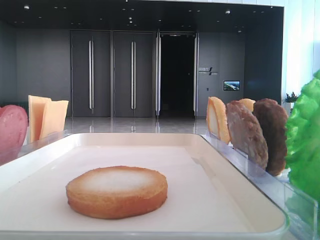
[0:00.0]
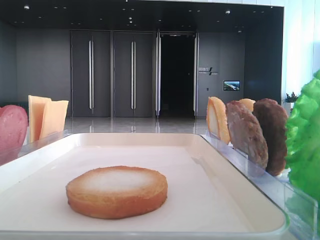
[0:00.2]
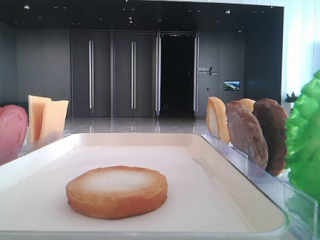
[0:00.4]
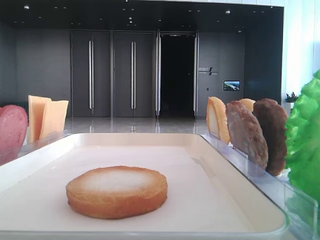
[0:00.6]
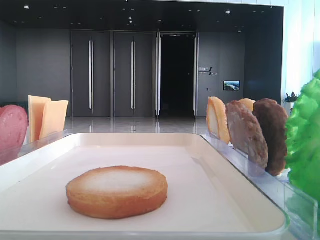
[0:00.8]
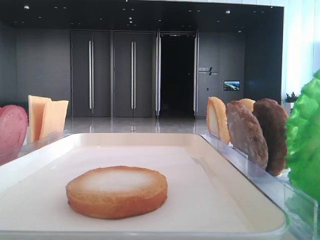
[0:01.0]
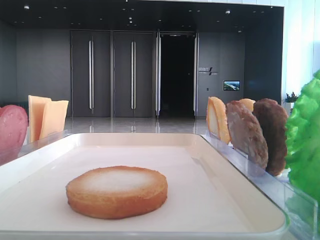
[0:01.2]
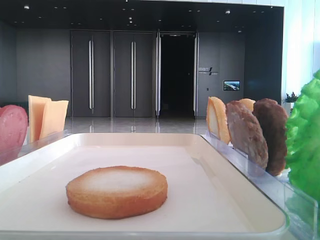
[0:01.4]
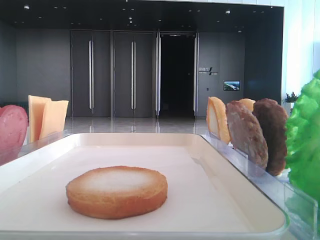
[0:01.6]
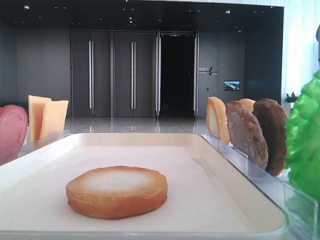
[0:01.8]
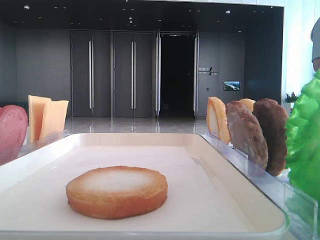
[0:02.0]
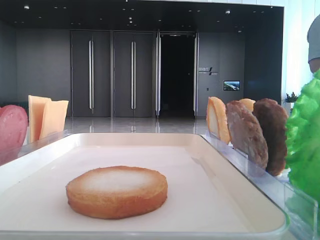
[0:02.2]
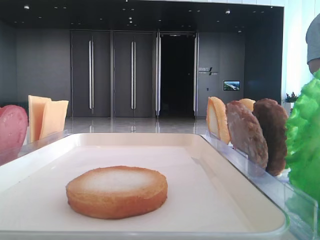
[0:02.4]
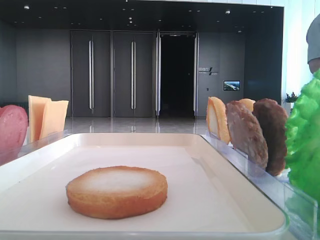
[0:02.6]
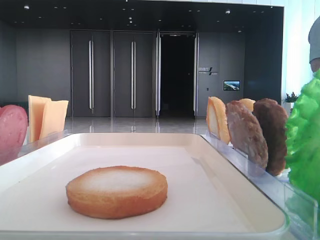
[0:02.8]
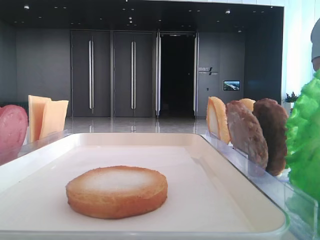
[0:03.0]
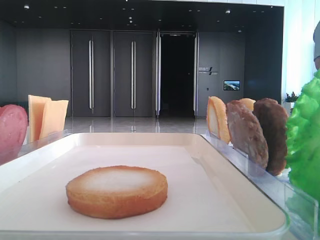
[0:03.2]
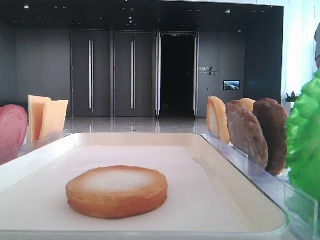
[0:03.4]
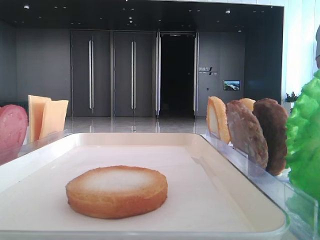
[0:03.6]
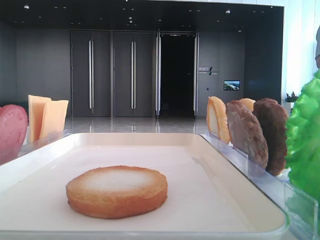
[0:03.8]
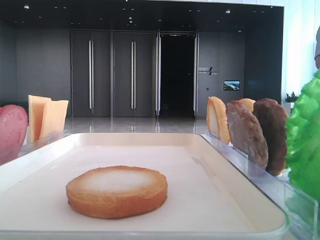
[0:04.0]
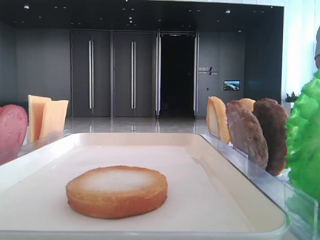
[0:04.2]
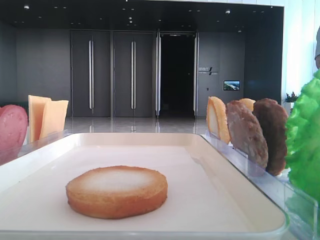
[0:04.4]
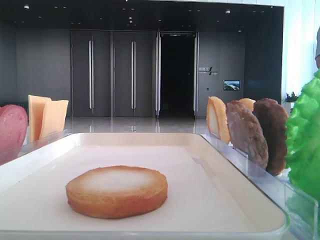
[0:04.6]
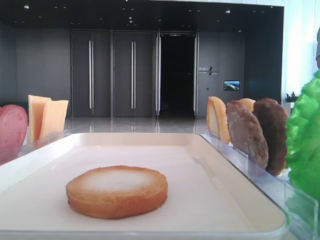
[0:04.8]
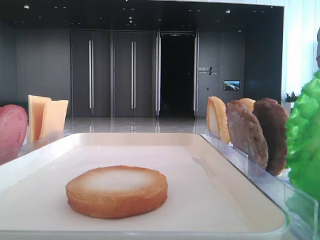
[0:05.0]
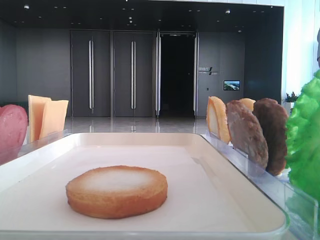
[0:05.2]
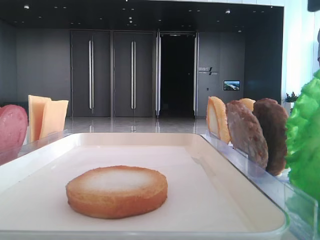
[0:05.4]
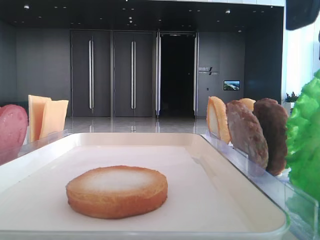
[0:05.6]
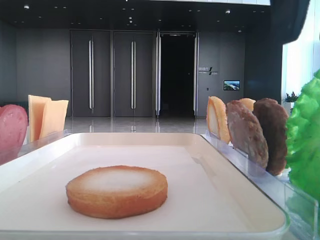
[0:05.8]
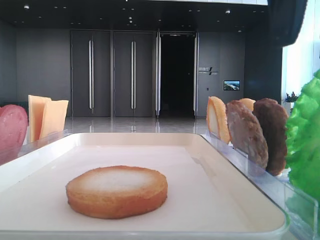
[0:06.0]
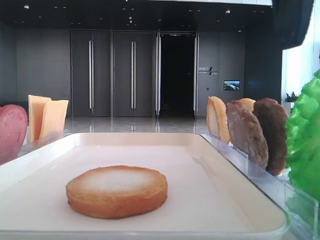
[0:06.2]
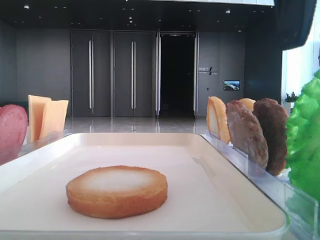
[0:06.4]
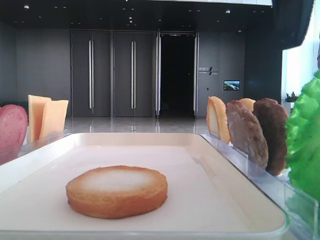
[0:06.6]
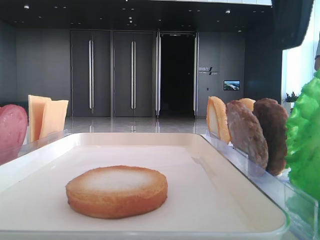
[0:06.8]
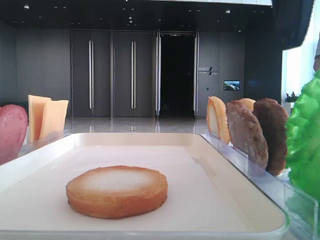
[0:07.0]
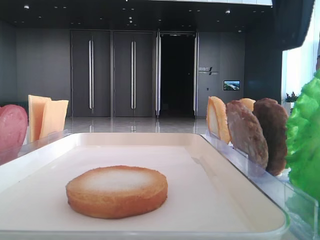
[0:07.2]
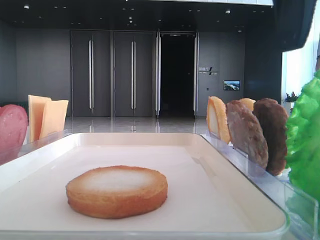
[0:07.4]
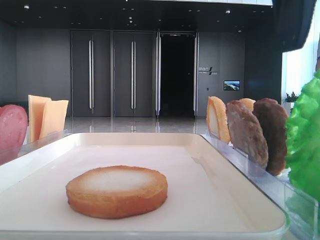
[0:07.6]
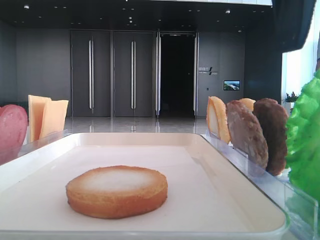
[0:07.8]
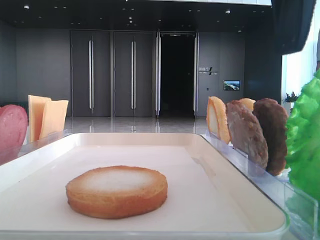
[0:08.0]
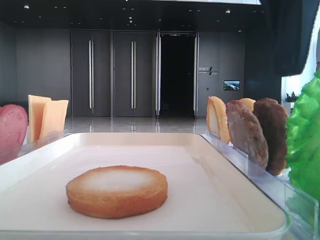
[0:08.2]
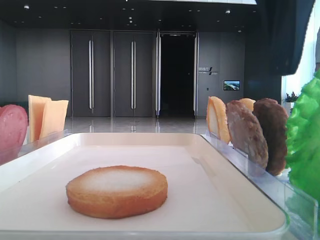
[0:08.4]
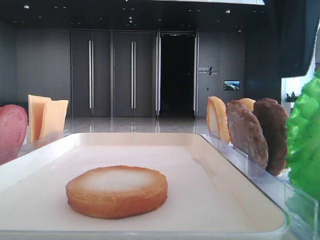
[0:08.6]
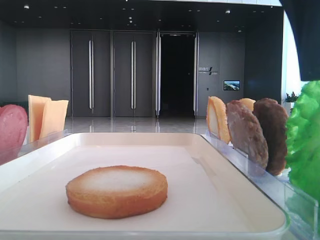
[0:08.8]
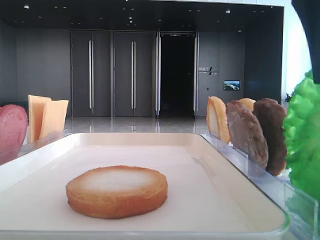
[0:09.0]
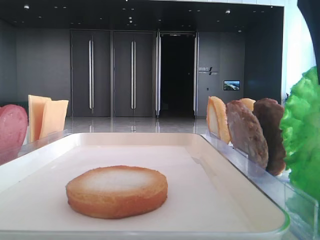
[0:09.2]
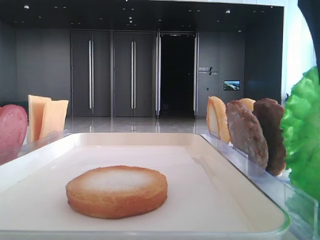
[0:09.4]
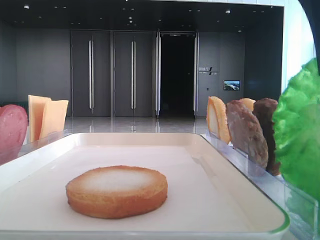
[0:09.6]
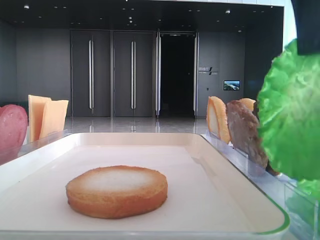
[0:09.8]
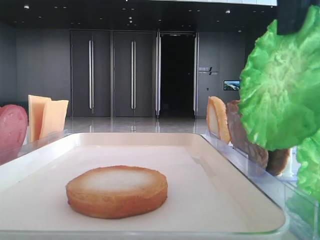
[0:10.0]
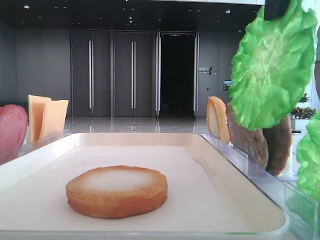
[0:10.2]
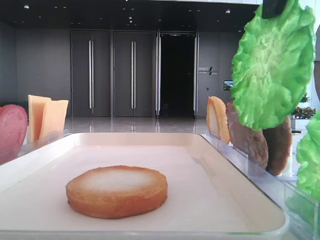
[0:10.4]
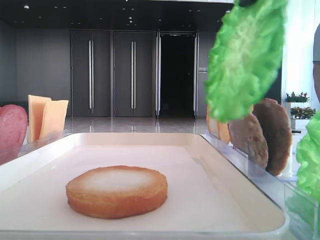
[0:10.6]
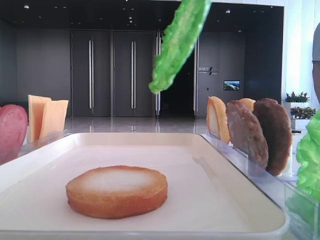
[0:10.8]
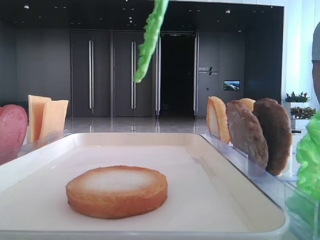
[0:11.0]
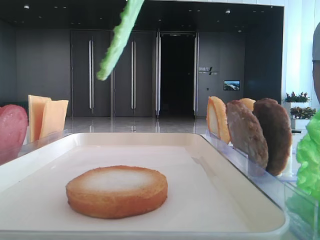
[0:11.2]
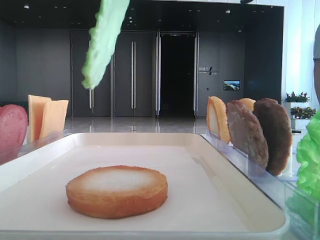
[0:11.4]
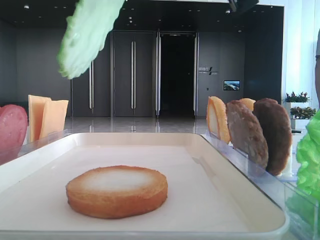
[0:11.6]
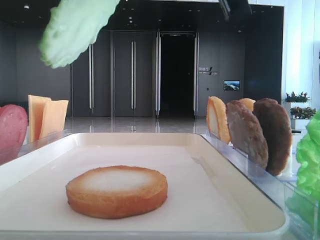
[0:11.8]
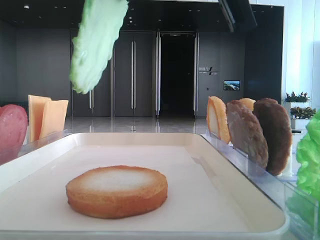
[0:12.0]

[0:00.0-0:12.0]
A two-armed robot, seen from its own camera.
Step, 0:00.0 to 0:09.4: Grab the lettuce leaf with the right hand.
0:04.4 to 0:06.0: The right gripper shifts some 5 cm to the left.
0:06.0 to 0:07.6: Neither gripper changes place.
0:07.6 to 0:09.0: The right gripper closes up.
0:09.0 to 0:10.4: The right gripper is displaced upward by roughly 5 cm.
0:10.4 to 0:12.0: The right gripper shifts by approximately 5 cm.

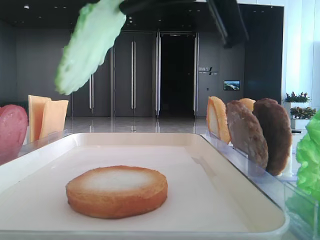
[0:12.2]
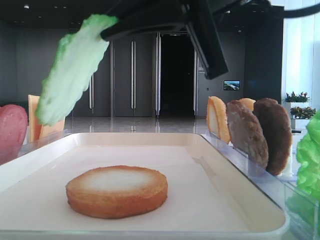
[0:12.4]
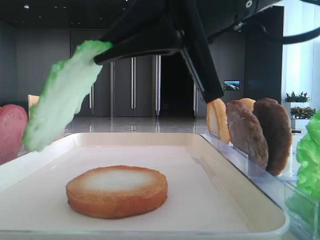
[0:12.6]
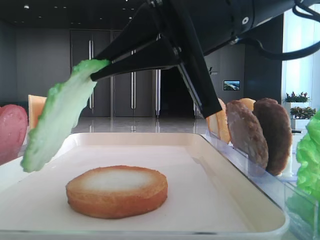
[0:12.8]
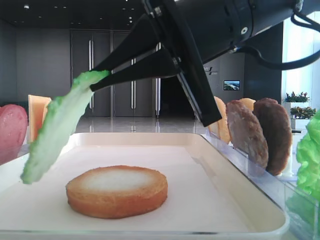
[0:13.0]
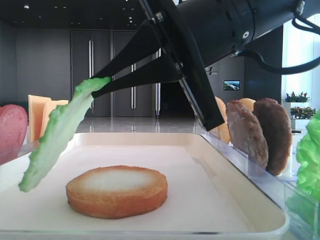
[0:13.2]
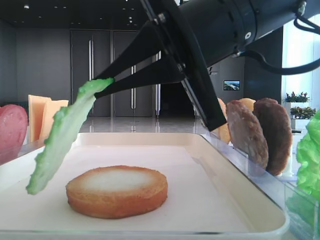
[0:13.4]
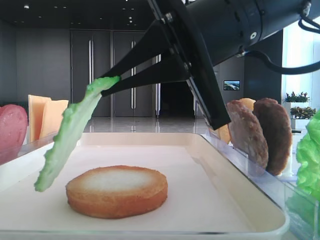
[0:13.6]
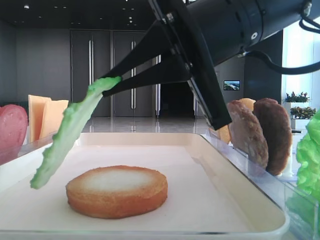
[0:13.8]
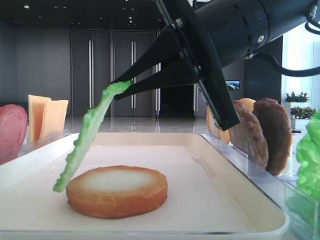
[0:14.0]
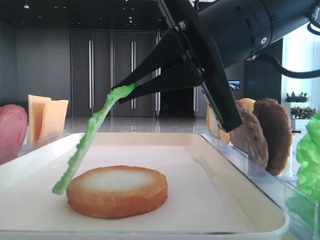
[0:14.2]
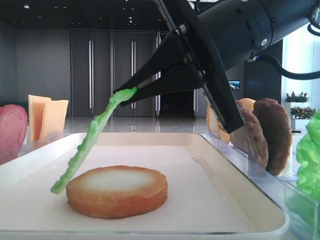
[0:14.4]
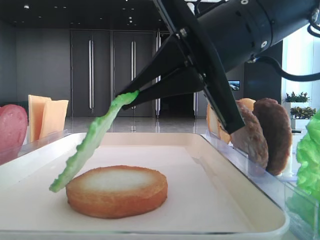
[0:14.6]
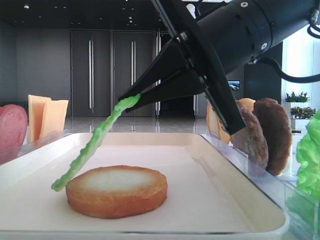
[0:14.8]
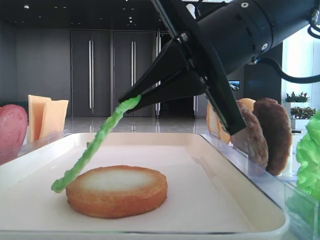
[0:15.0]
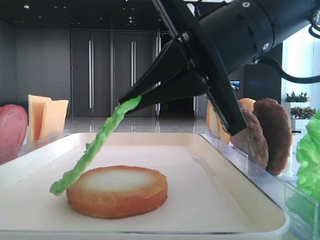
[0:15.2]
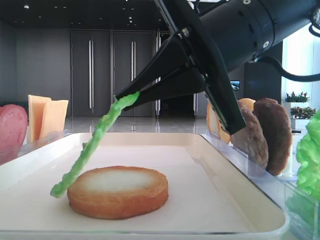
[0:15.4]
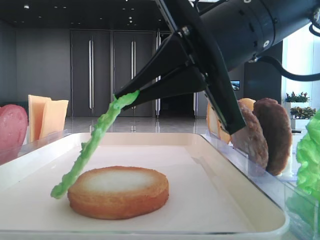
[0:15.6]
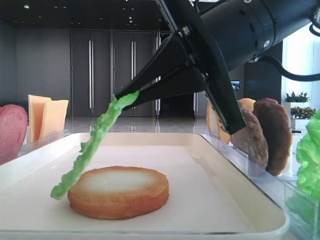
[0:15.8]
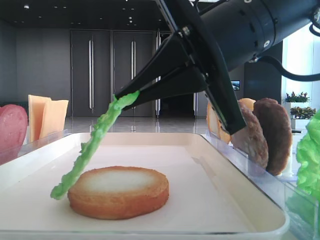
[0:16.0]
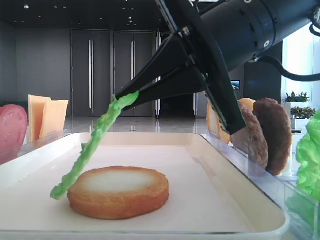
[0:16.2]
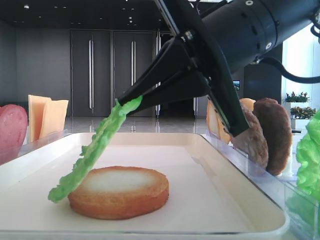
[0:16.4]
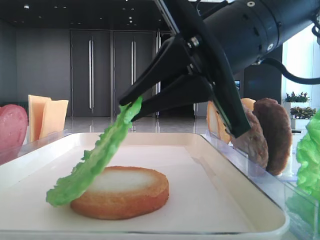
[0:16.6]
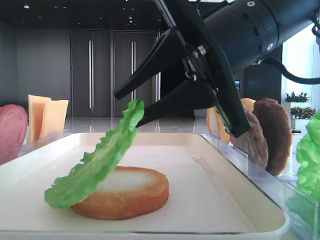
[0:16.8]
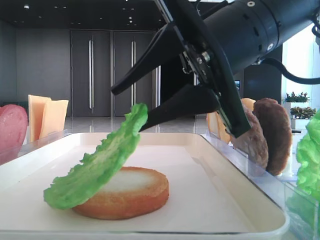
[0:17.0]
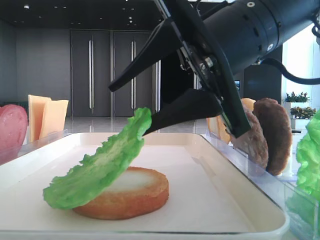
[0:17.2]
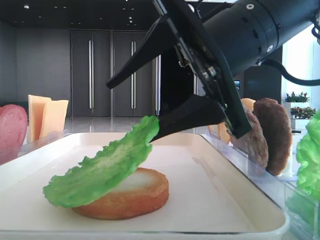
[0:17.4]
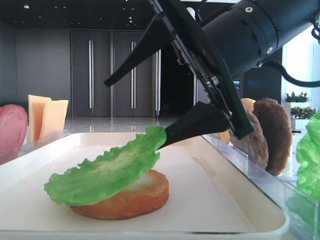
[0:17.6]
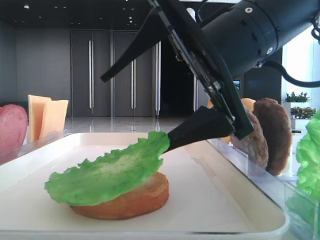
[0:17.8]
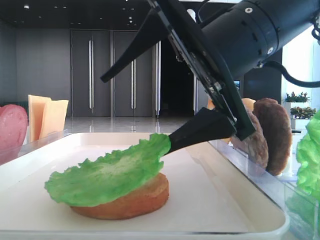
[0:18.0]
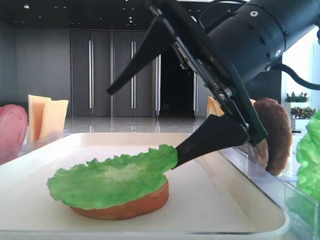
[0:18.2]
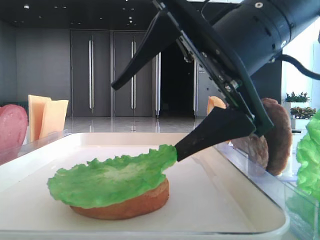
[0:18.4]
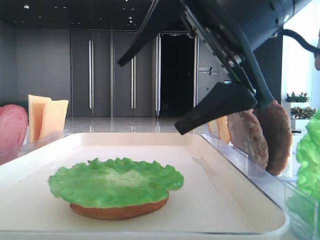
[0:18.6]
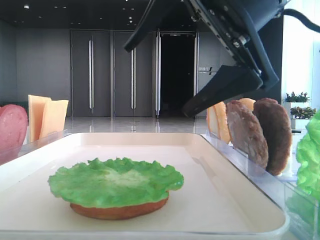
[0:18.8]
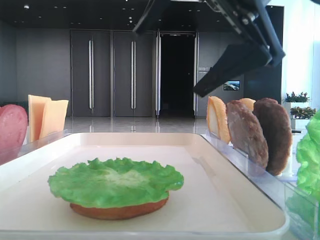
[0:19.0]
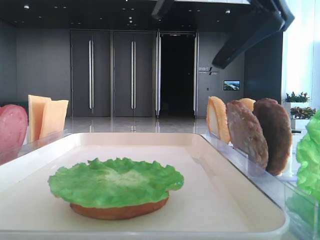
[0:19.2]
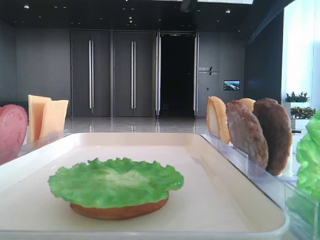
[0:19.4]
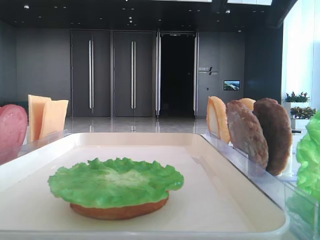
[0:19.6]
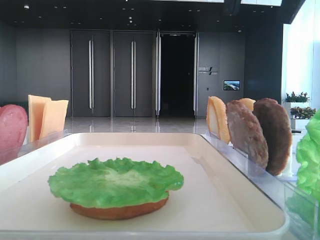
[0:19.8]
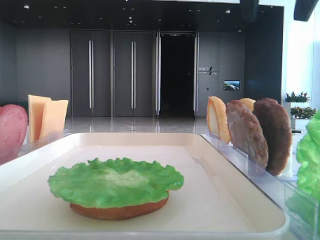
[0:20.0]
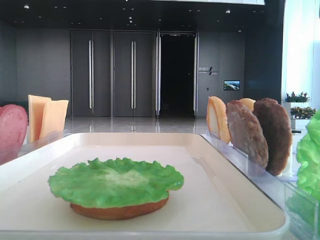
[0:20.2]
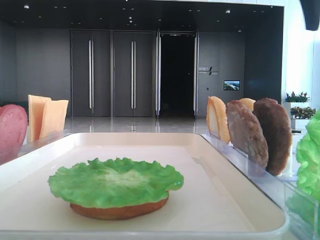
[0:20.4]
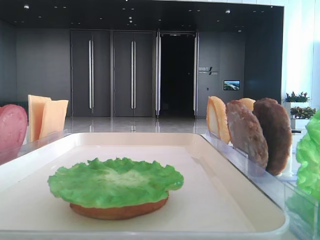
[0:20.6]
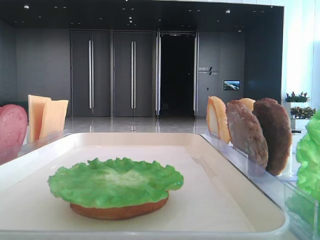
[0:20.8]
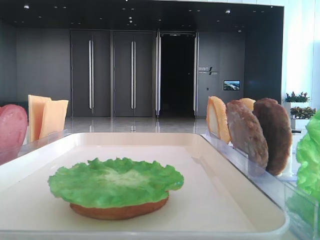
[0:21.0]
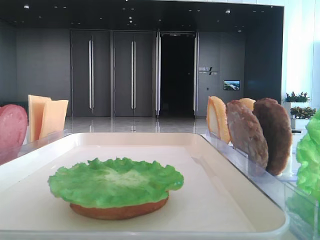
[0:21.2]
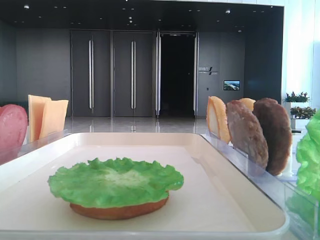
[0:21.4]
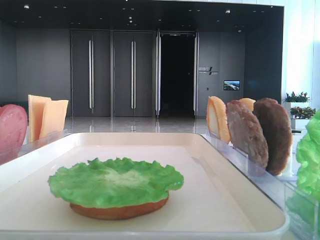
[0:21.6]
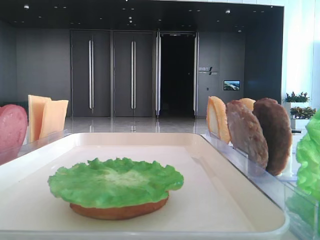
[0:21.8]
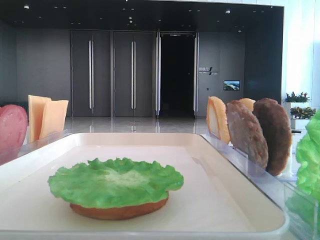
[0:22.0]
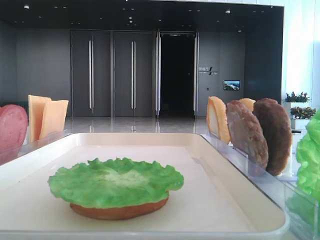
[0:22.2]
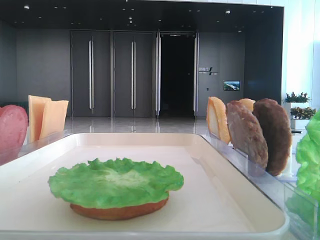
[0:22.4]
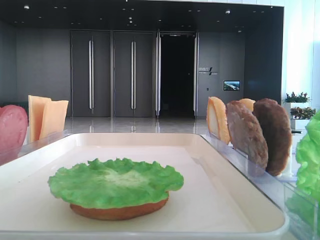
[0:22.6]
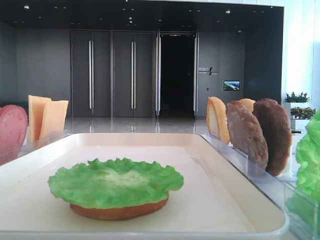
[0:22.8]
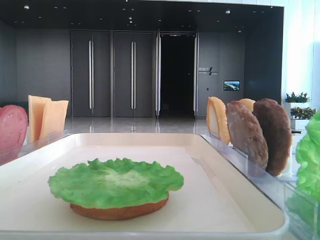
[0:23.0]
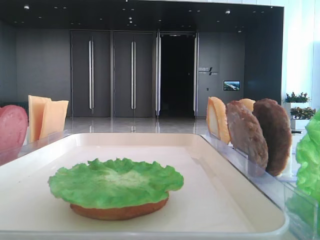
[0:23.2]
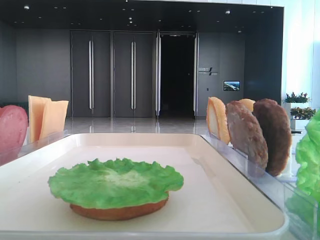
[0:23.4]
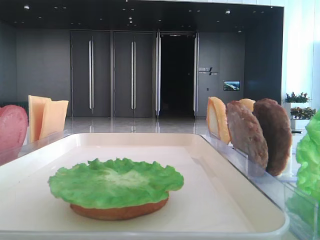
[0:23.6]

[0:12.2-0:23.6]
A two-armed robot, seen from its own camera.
Step, 0:12.2 to 0:18.4: Place the lettuce leaf on the bottom bread with the right hand.
0:12.2 to 0:13.6: The right gripper heads downward, covering roughly 10 cm.
0:13.6 to 0:15.0: The grippers move only a little.
0:15.0 to 0:16.4: Both grippers stay about where they are.
0:16.4 to 0:17.8: The right gripper opens its fingers.
0:17.8 to 0:19.4: The right gripper heads upward, covering about 15 cm.
